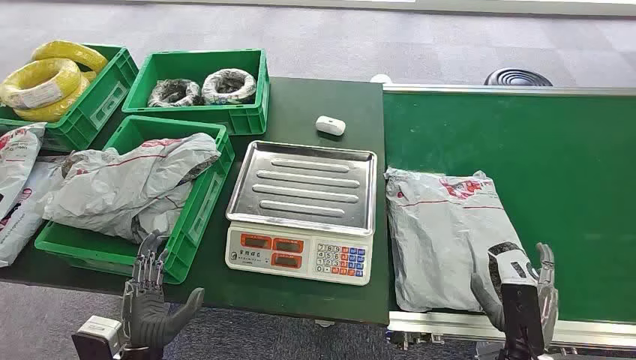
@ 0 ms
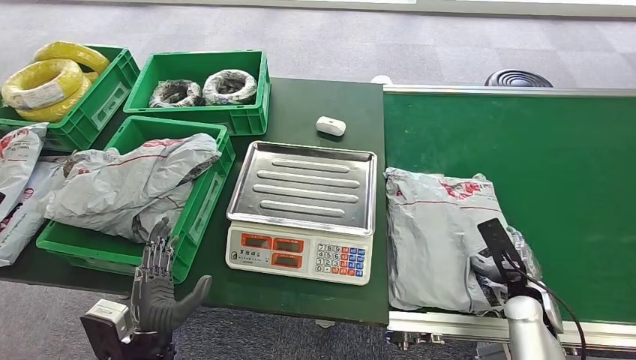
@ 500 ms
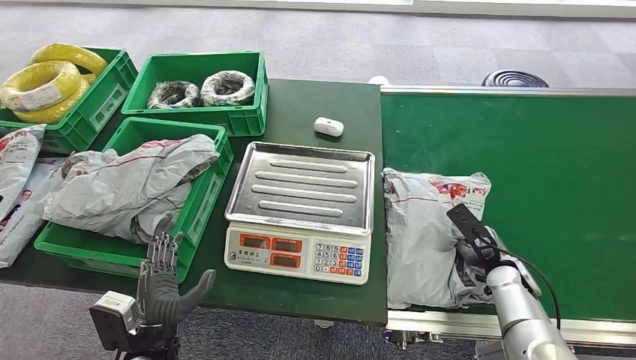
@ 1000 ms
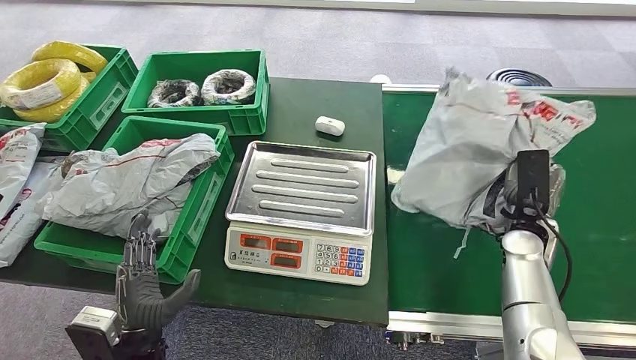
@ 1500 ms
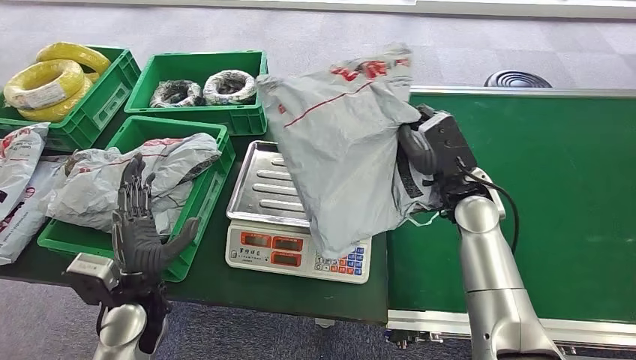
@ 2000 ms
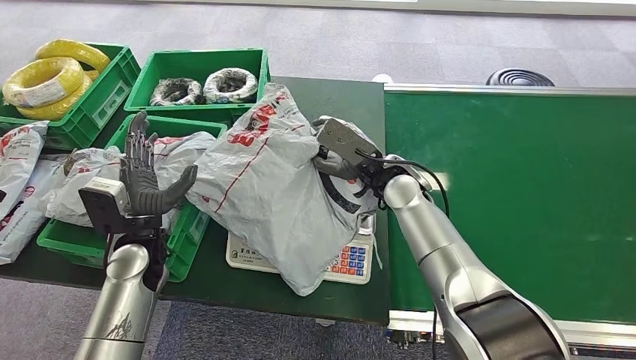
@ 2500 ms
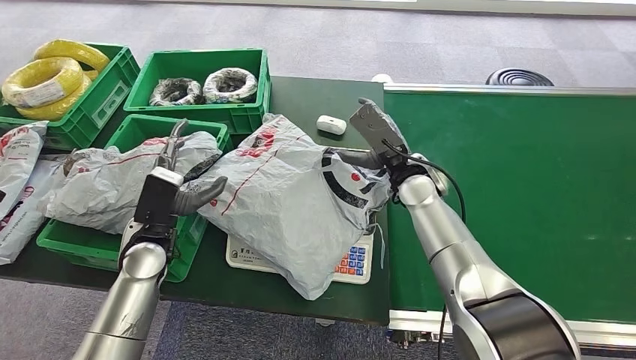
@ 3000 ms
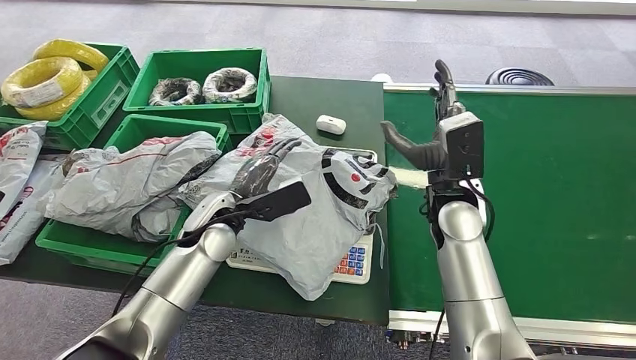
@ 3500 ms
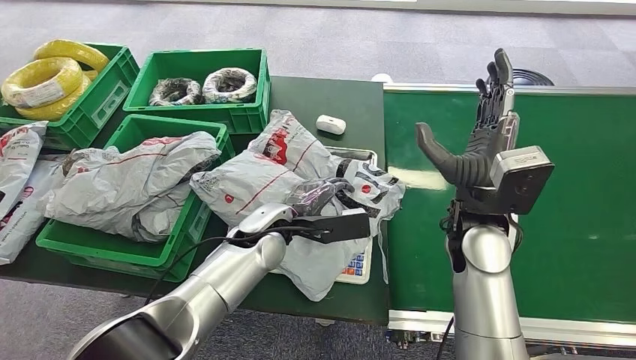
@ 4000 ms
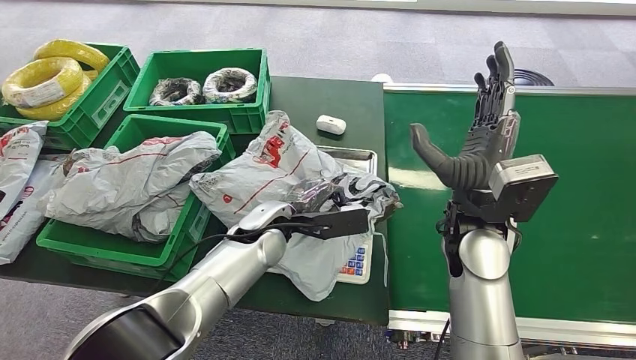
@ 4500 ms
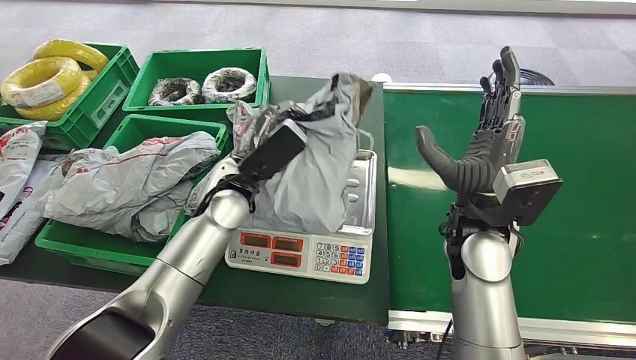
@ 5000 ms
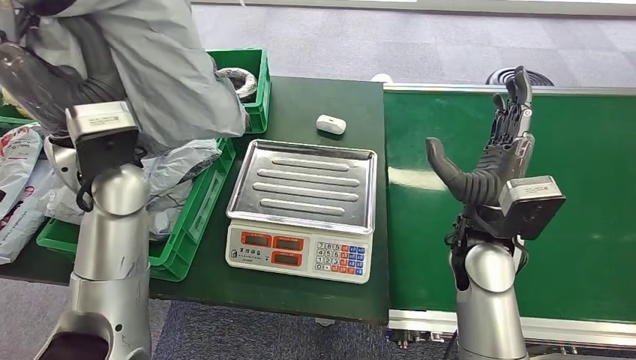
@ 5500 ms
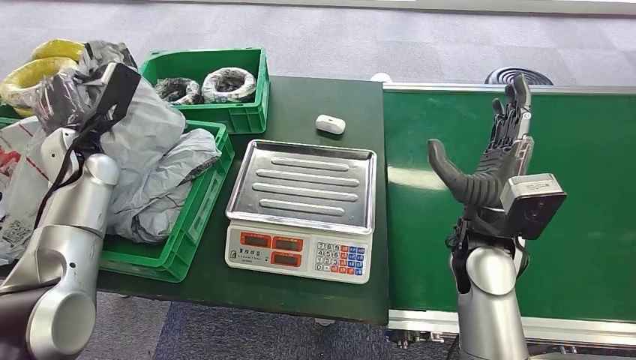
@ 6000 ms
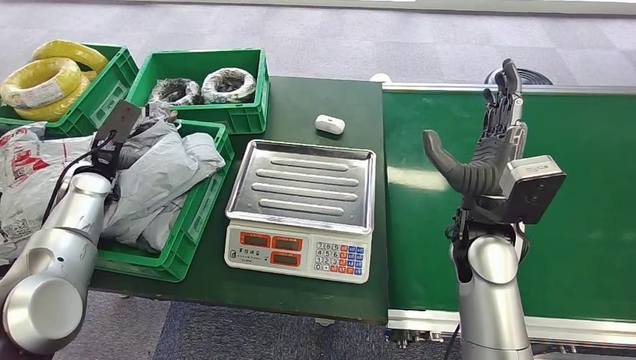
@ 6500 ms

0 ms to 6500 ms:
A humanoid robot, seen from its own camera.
Step, 0 ms to 1500 ms: Pick up the package from the conveyor belt.
Step, 2000 ms to 3500 ms: Place the package onto the inbound machine.
Step, 4000 ms to 5000 ms: Pick up the package from the inbound machine.
Step, 5500 ms to 6500 ms: Place the package into the parcel locker.

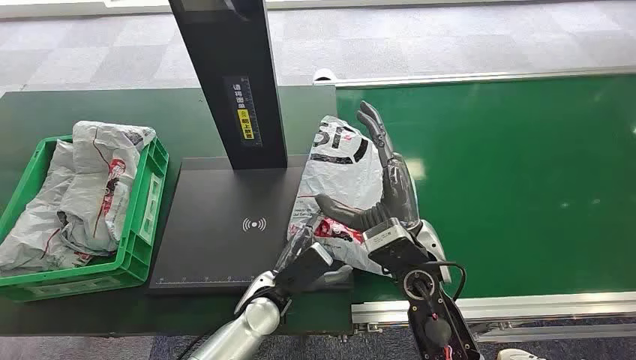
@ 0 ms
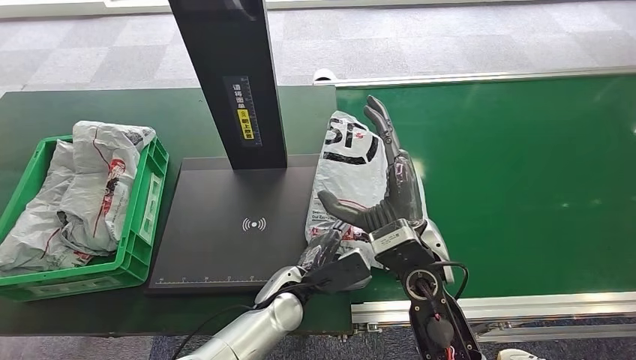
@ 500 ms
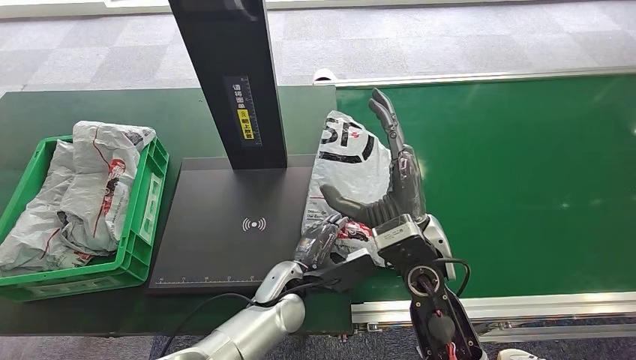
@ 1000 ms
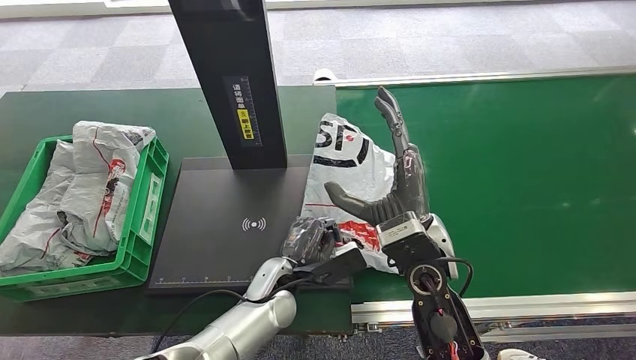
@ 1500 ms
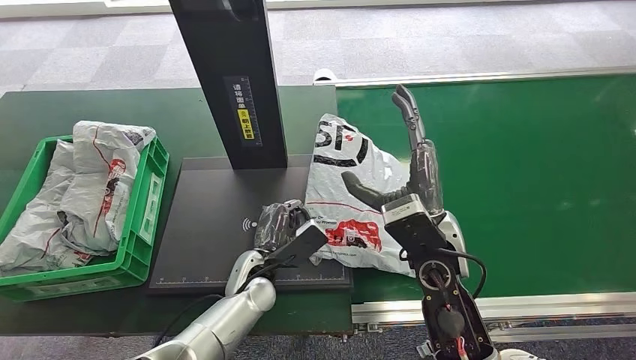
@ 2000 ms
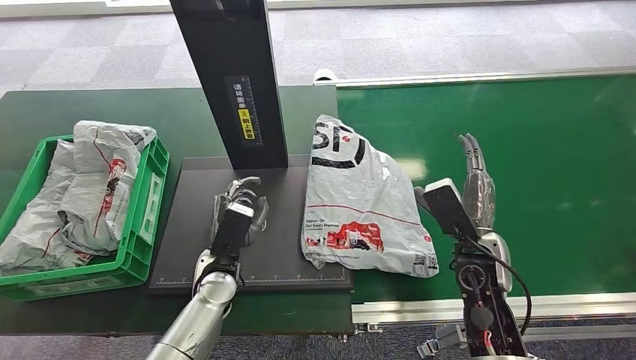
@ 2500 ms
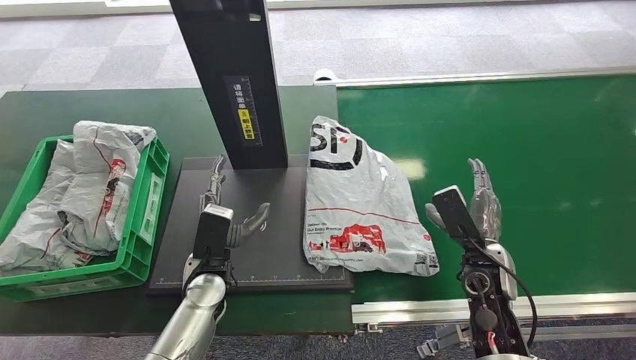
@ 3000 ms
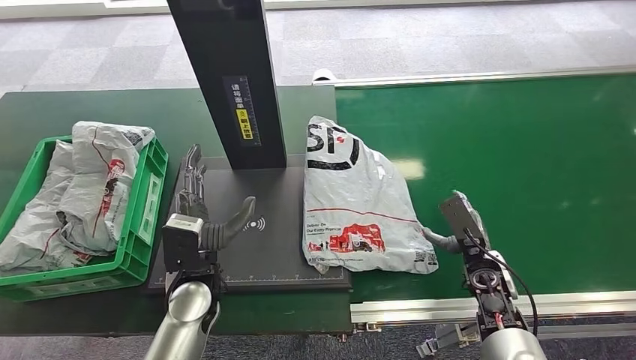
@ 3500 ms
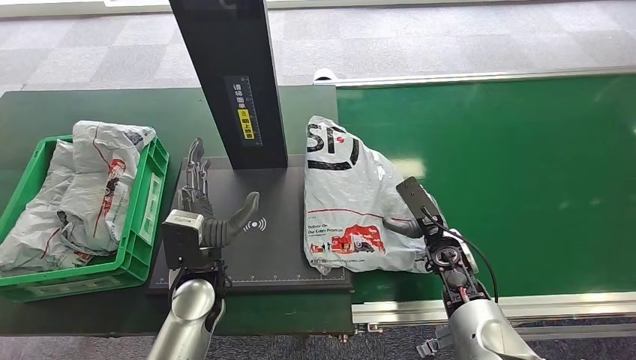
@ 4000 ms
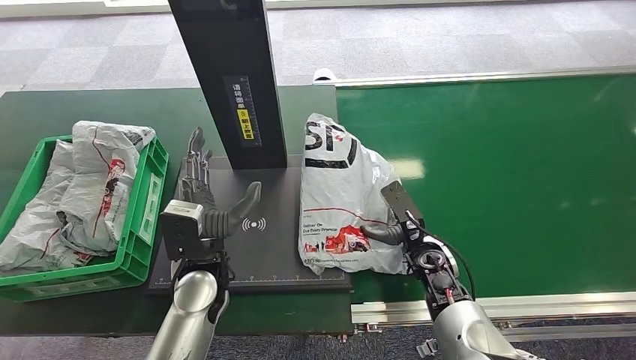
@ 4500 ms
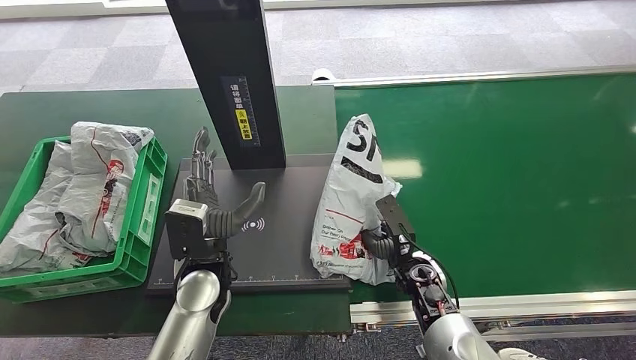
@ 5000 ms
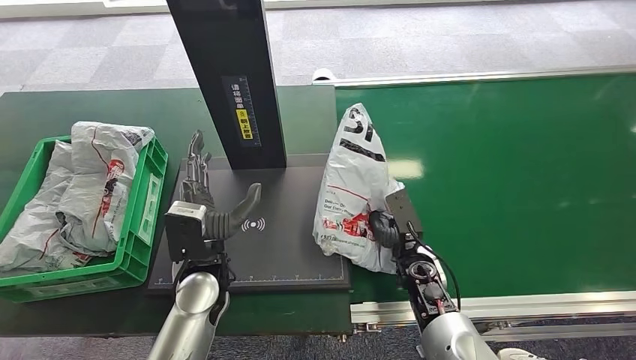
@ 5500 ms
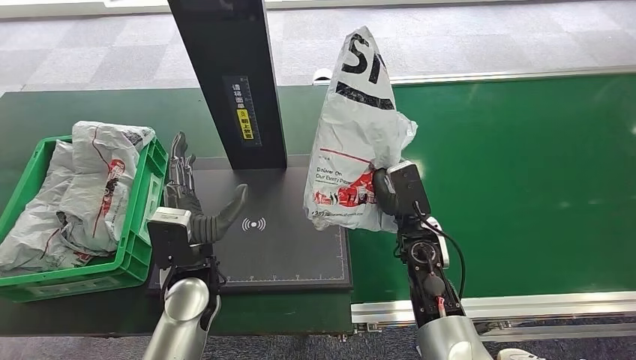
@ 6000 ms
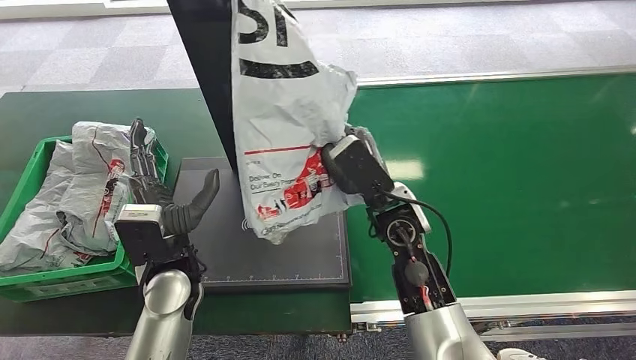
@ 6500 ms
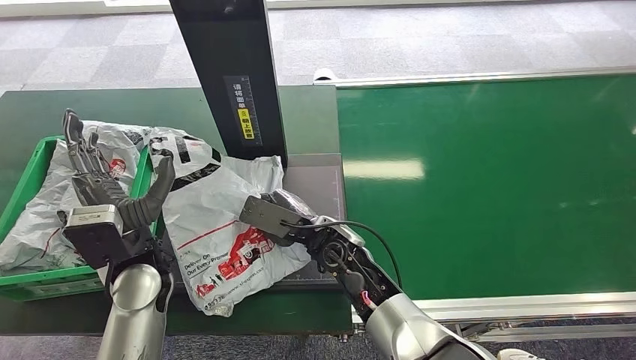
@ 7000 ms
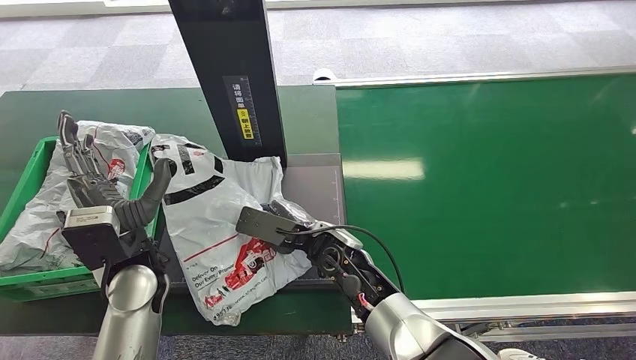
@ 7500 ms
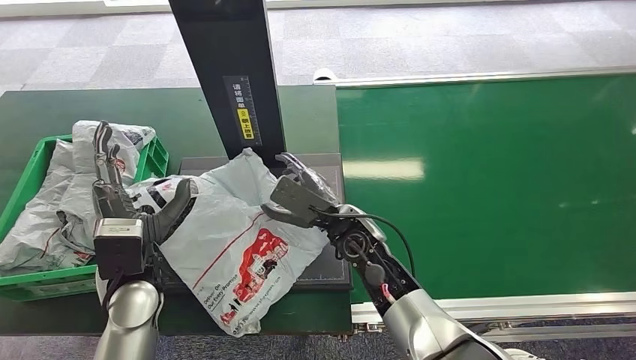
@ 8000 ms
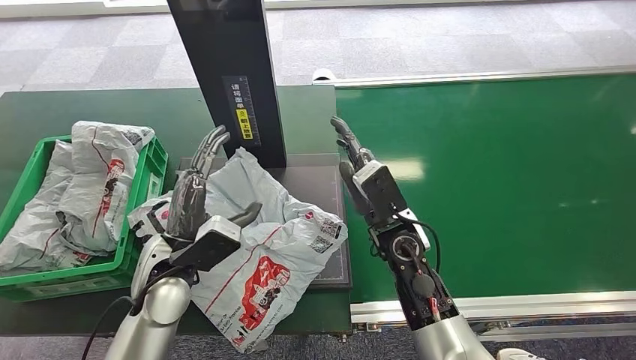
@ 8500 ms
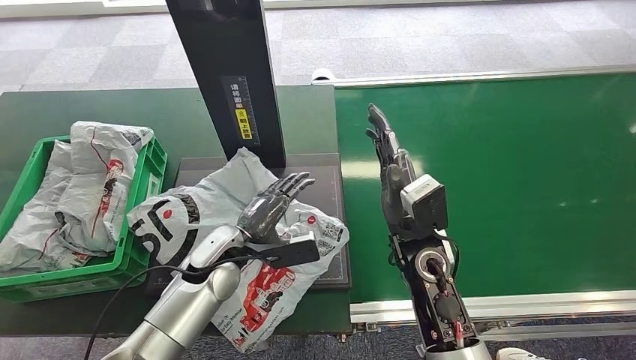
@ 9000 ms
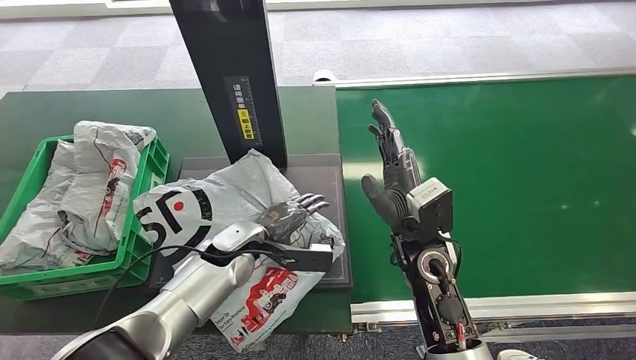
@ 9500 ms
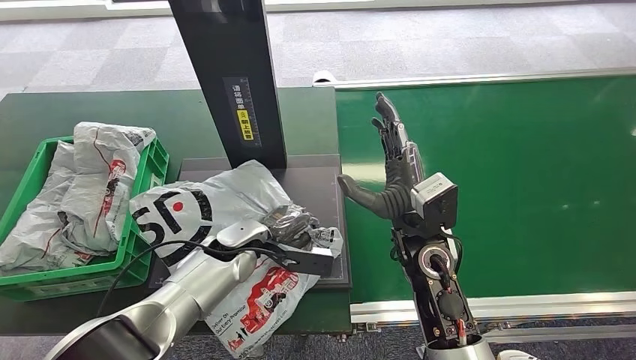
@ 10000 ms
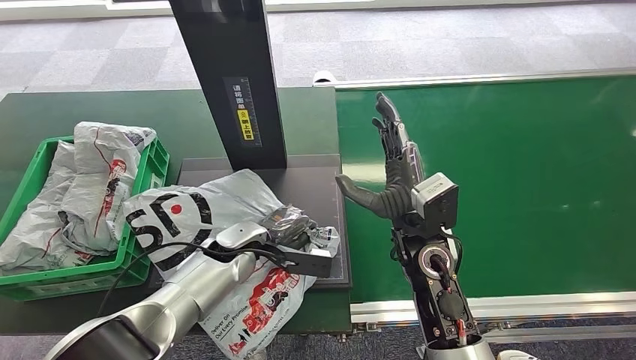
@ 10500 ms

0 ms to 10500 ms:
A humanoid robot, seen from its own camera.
Step, 0 ms to 6000 ms: Pick up the package from the conveyor belt.
Step, 6500 ms to 9000 ms: Place the package onto the inbound machine.
2000 ms to 4000 ms: The right hand is displaced downward and to the right by roughly 15 cm. The left hand is displaced upward by about 10 cm.

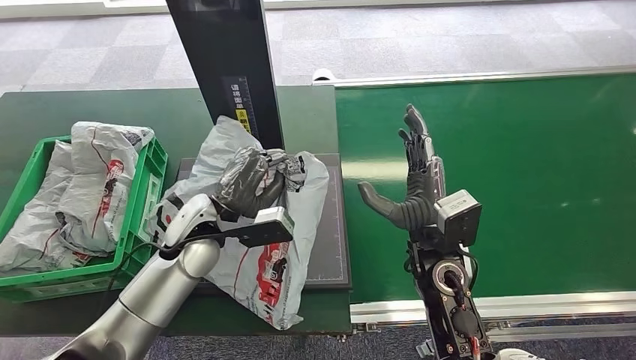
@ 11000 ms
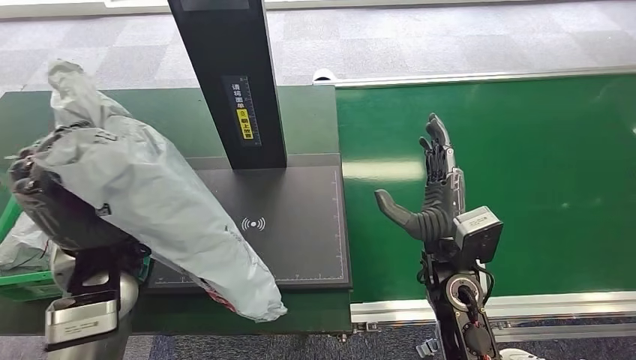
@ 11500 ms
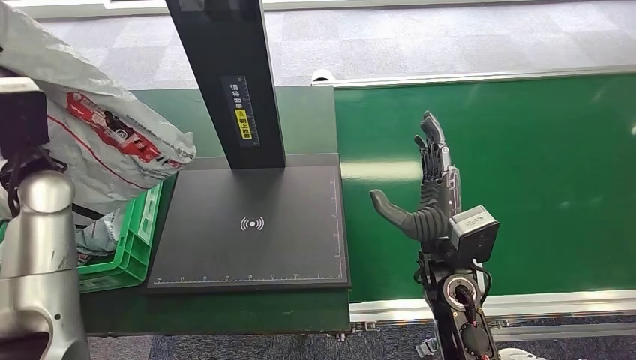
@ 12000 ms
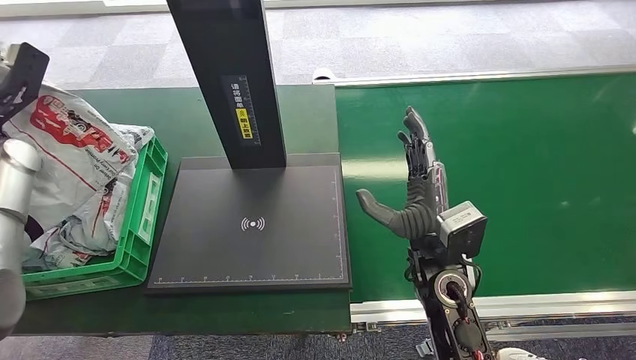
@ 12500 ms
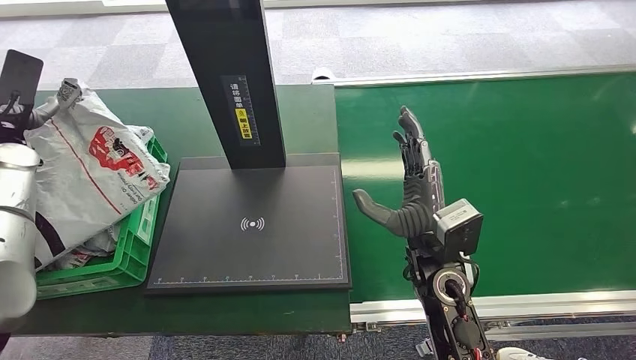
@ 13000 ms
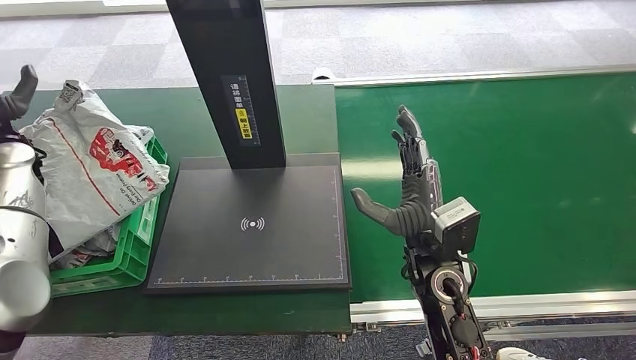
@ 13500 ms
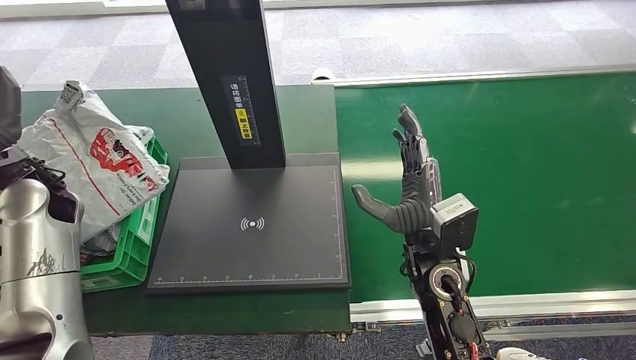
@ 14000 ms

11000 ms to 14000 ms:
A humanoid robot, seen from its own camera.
Step, 12000 ms to 14000 ms: Place the package into the parcel locker.
12500 ms to 14000 ms: The left hand shifts some 10 cm to the right.
